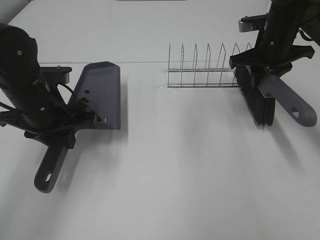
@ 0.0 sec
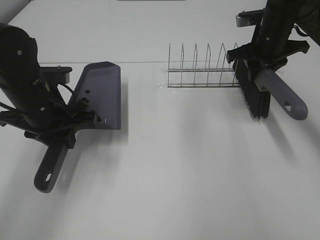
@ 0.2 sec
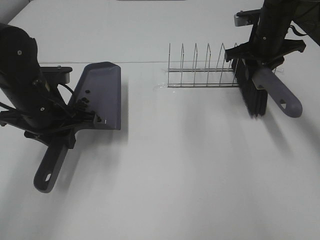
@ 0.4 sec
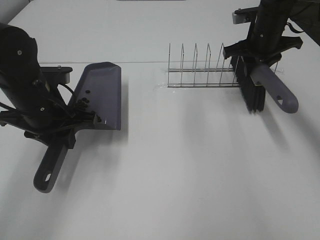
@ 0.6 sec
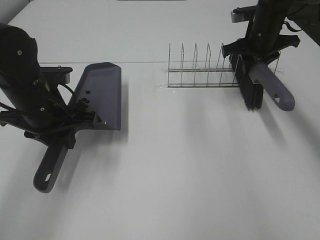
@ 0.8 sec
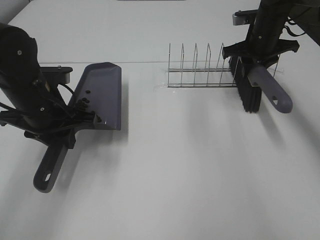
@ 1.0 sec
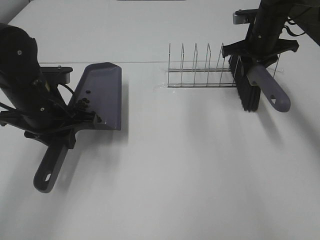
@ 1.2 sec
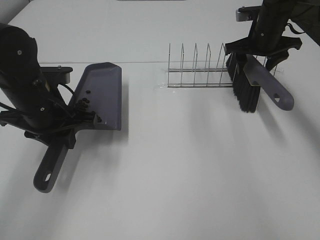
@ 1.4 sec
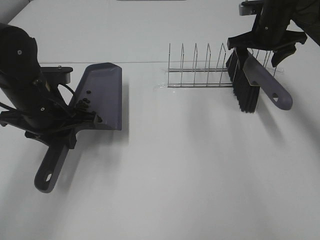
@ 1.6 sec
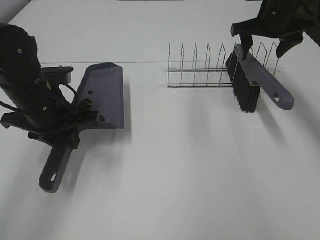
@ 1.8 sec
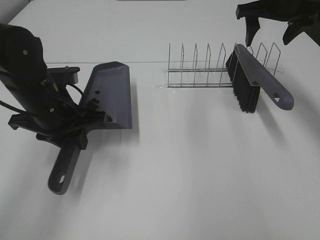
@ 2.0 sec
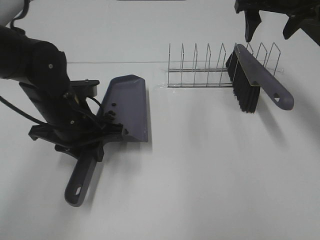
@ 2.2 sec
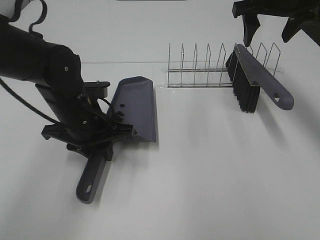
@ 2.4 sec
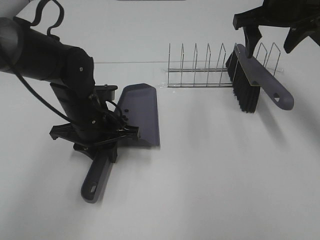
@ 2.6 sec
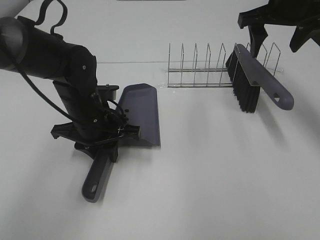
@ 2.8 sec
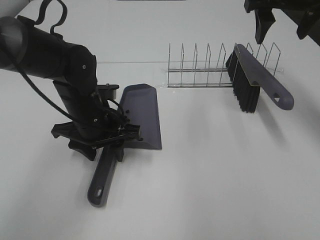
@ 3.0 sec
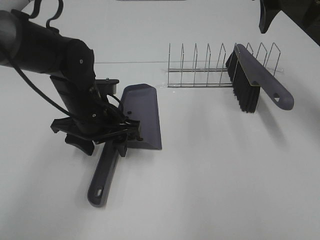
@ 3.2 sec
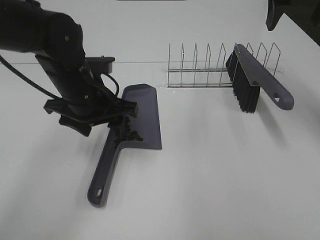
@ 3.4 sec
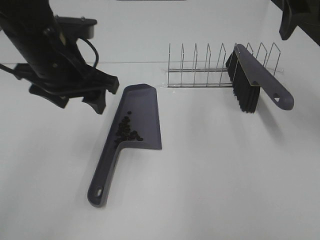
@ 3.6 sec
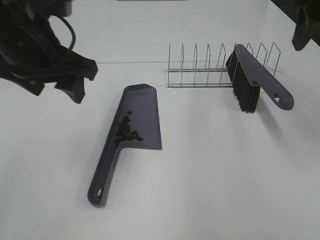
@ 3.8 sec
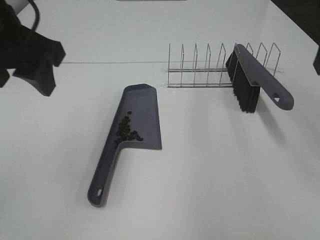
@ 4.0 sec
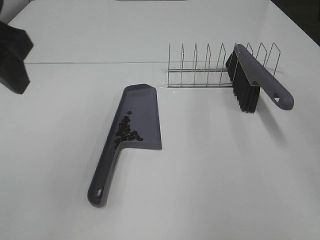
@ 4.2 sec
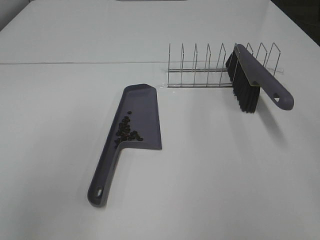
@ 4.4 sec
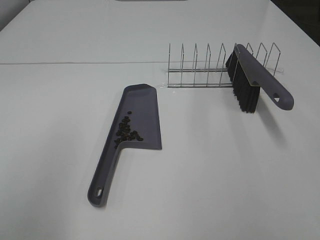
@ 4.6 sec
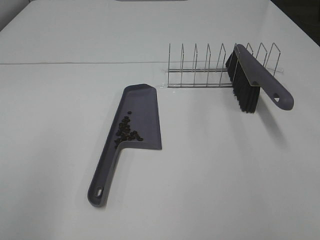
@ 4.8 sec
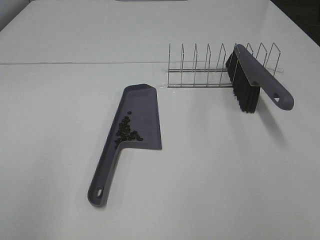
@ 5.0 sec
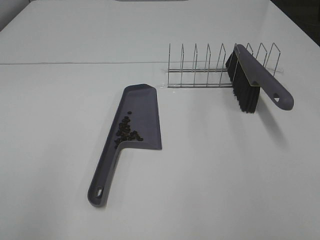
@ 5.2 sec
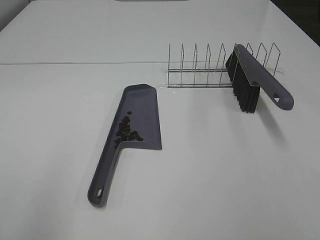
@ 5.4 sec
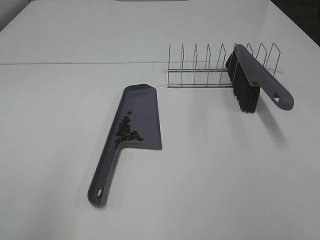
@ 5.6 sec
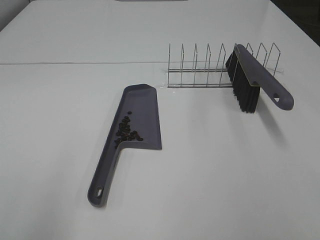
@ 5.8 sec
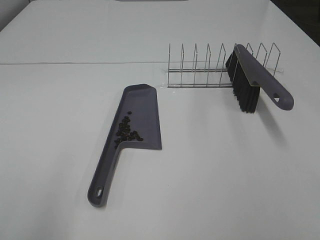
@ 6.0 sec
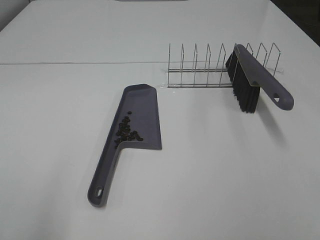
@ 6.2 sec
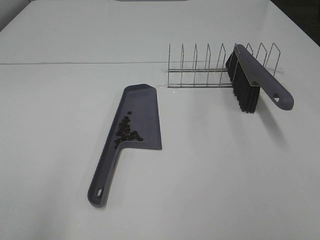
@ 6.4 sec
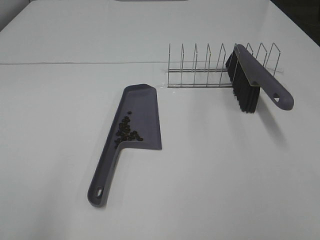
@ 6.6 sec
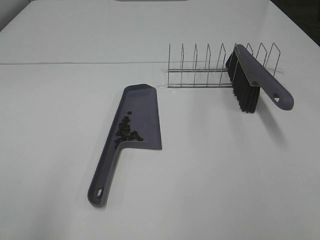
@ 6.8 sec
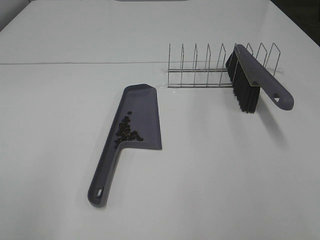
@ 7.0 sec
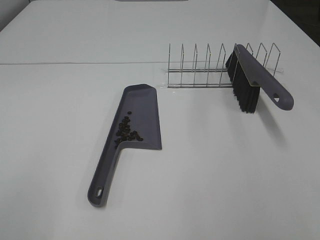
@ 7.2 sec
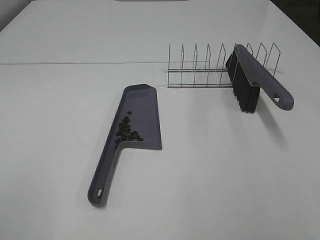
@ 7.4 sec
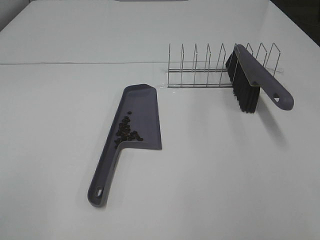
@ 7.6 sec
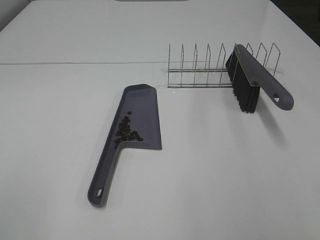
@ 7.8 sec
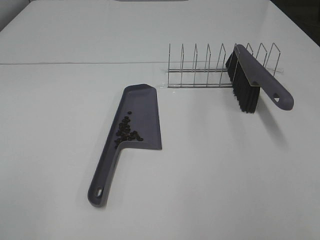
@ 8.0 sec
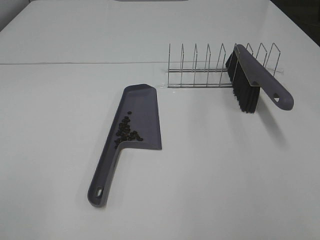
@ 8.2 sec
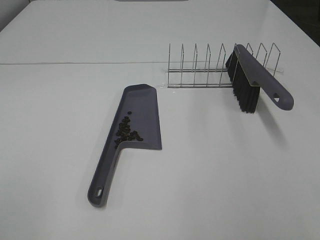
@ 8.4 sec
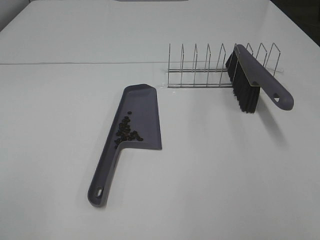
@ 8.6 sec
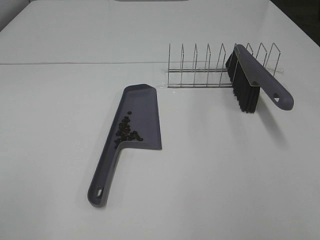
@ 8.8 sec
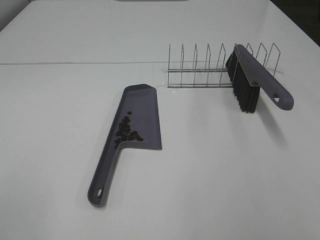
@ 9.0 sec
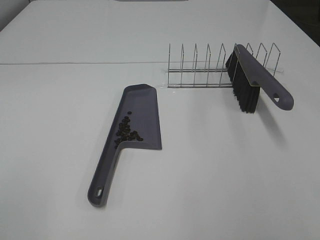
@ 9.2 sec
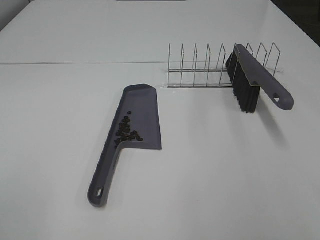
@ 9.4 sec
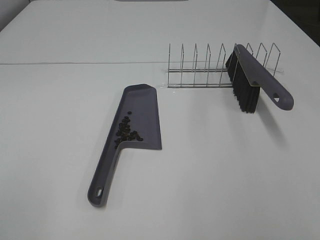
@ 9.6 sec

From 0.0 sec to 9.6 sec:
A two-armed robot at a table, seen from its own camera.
Task of the whole recording: Sweep Coffee Bean.
Step, from 1.8 sec to 3.2 sec: Left hand:place the dustpan on the table.
From 0.0 sec to 1.6 sec: The right gripper travels forward by some 5 cm, and opens its fingers.
From 1.6 sec to 3.2 sec: The right gripper goes some 15 cm upward and backward, while the left gripper moves to the right, roughly 5 cm, and opens.
From 3.2 sec to 4.8 sec: The right gripper moves backward, approximately 35 cm. Meanwhile the left gripper travels backward, upward and to the left by approximately 35 cm.
From 8.0 sec to 9.6 sec: Both grippers stay about where they are.
